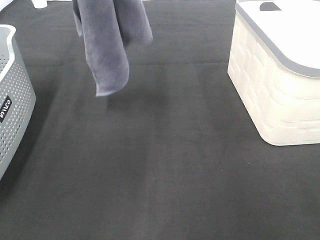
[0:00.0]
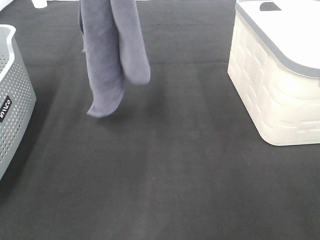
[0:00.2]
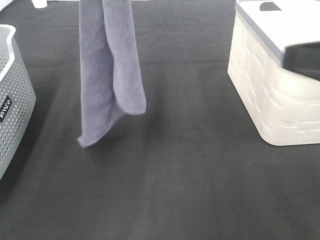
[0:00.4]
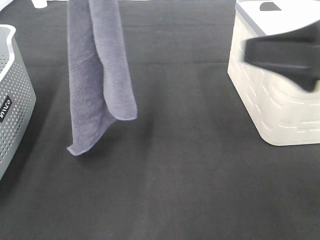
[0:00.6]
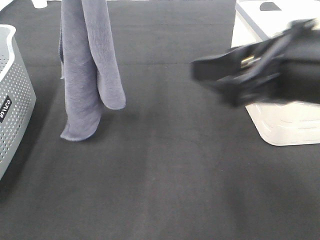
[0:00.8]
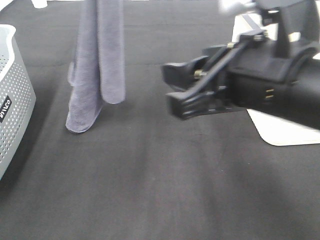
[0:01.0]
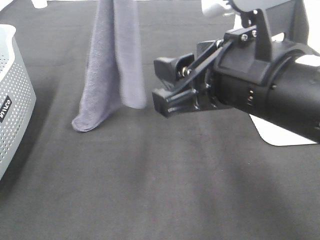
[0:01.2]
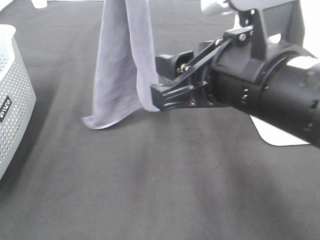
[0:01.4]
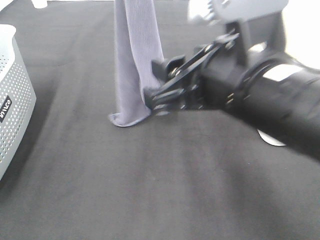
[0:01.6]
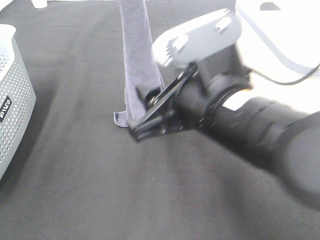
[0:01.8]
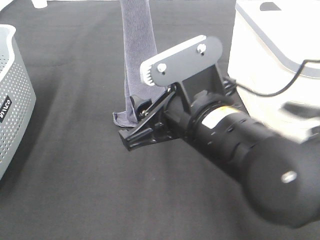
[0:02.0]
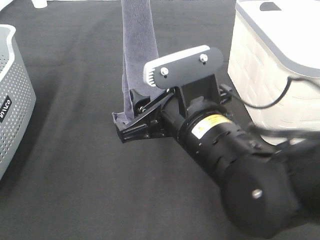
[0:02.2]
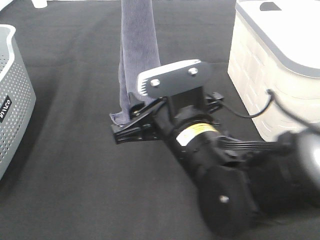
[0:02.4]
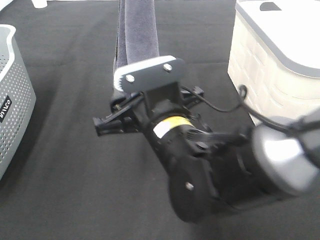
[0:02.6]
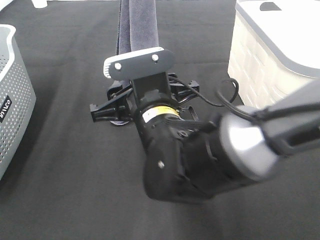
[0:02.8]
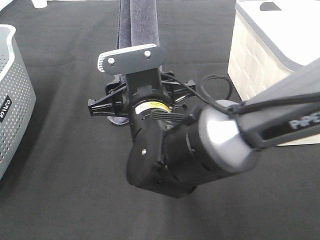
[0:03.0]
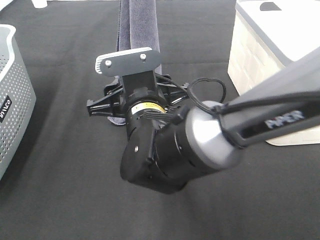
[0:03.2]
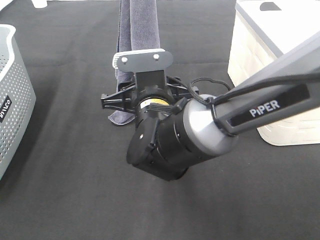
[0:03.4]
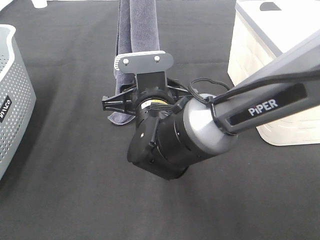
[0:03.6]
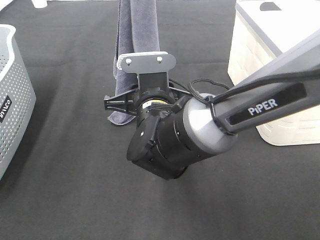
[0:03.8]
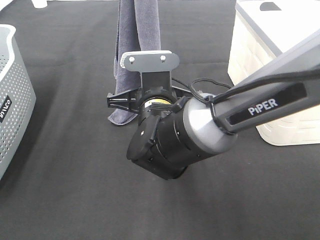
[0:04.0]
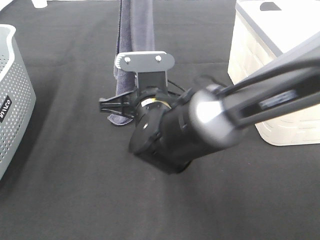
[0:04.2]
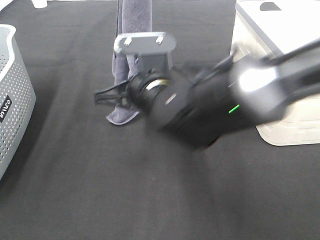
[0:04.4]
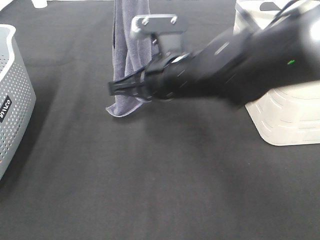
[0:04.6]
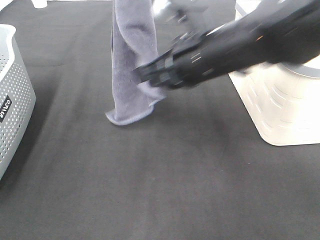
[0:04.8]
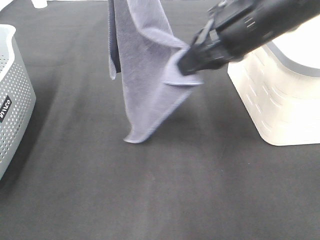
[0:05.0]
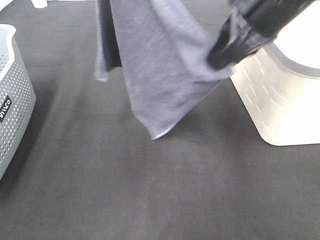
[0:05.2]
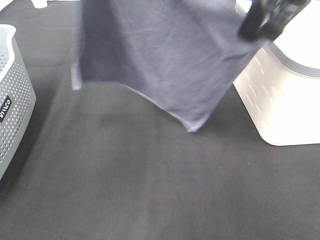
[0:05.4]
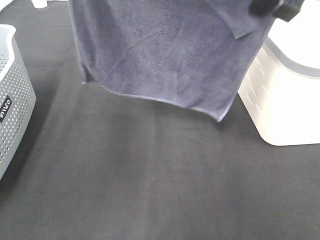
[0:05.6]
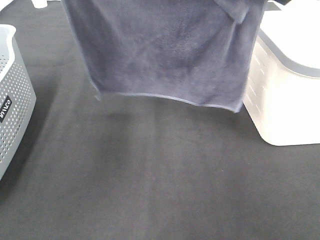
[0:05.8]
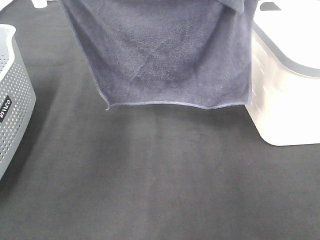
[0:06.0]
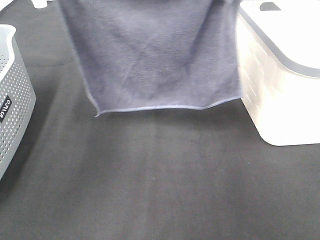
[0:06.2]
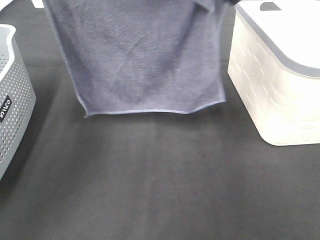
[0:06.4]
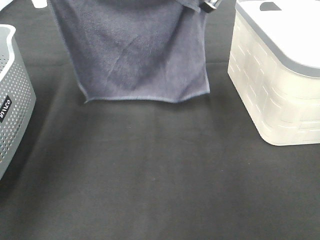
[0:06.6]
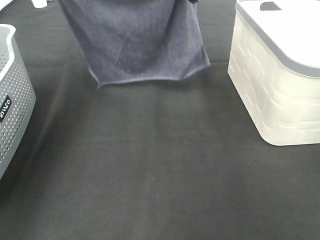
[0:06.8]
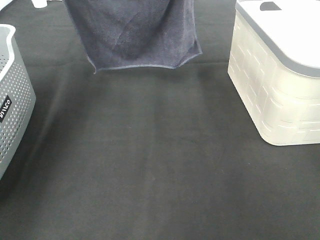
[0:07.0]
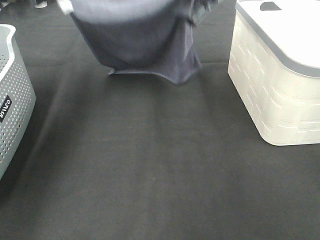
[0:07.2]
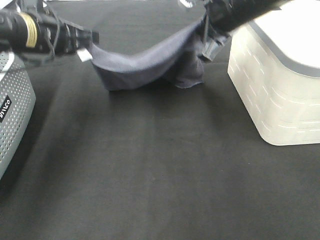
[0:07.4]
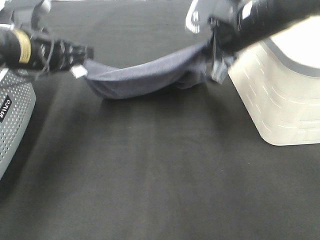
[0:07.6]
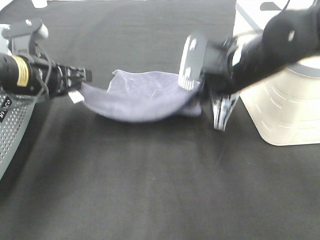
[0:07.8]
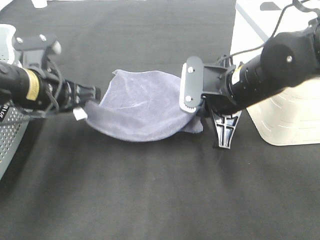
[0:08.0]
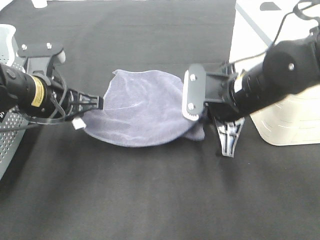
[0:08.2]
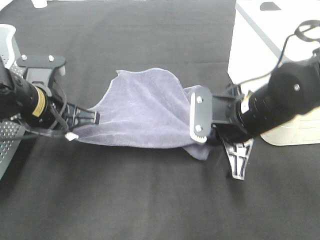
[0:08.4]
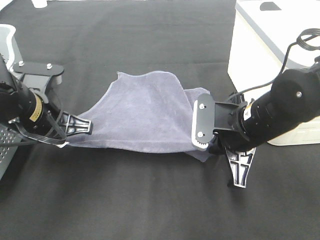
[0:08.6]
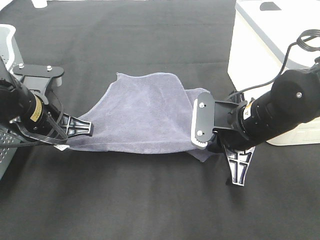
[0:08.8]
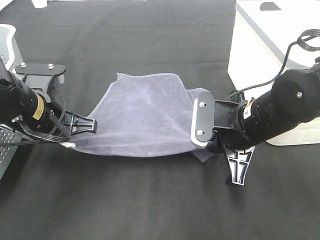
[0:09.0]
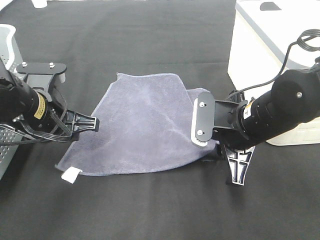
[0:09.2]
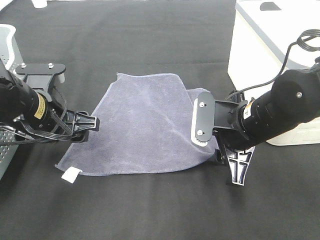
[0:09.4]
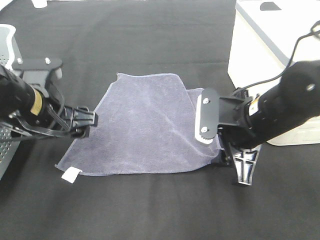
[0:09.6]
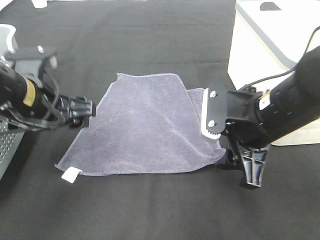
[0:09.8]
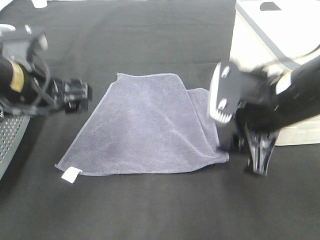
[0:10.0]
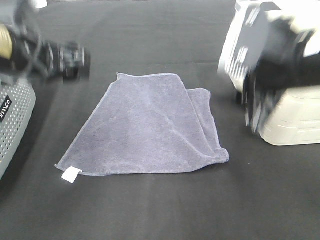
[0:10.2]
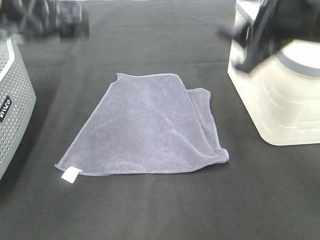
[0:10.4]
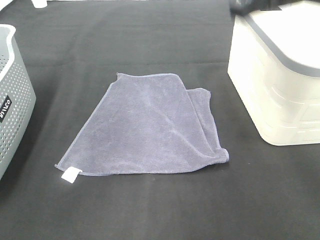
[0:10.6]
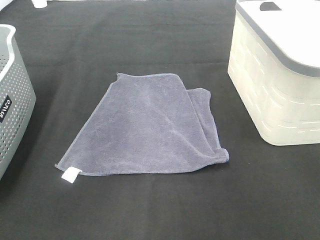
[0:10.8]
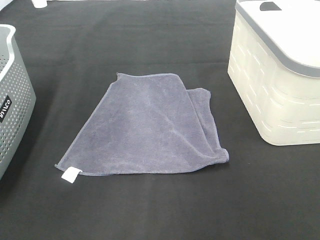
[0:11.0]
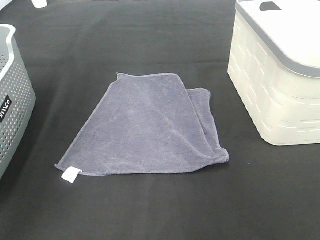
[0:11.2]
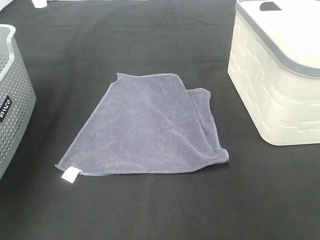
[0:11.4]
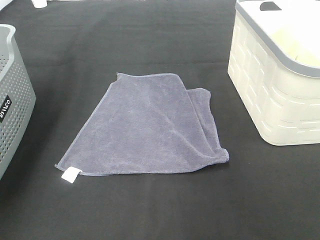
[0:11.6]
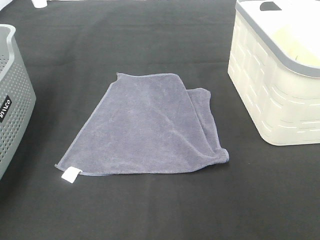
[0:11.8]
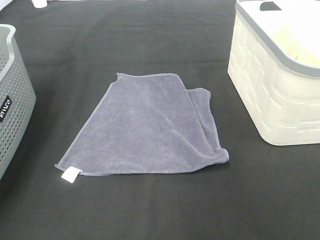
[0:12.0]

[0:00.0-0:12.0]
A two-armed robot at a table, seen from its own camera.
Task of the whole recording: Remove the towel and place it.
Step, 0:00.0 to 0:02.0: Right hand: grab a corner of the grey towel and straighten it.
Step, 0:02.2 to 0:05.0: Left hand: spread the grey towel flat on the table.
Step, 0:02.2 to 0:05.0: Right hand: spread the grey towel flat on the table.
0:00.0 to 0:01.6: The right gripper moves to the left and forward, some 20 cm; the left gripper shifts some 10 cm downward and to the right.
0:01.6 to 0:03.0: The right gripper is displaced to the left, downward and forward by roughly 15 cm.
0:03.0 to 0:04.4: The right gripper closes up.
0:04.4 to 0:06.0: The left gripper heads to the left and downward, covering roughly 15 cm, while the right gripper heads upward and to the right, covering approximately 25 cm.
0:06.0 to 0:07.6: The grippers both shift downward by approximately 15 cm.
0:07.6 to 0:09.0: The right gripper travels downward and backward by some 15 cm, while the left gripper heads backward, covering approximately 5 cm.
0:09.0 to 0:10.4: Both grippers move upward, approximately 15 cm. The right gripper opens its fingers, while the left gripper opens its fingers.
0:10.4 to 0:12.0: The left gripper shifts approximately 20 cm to the left and upward. Meanwhile the right gripper shifts approximately 20 cm forward and upward.

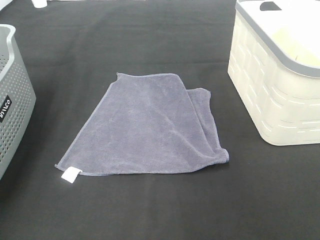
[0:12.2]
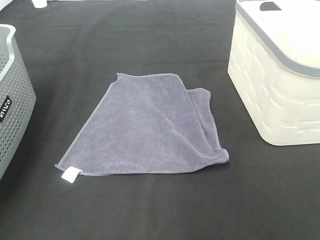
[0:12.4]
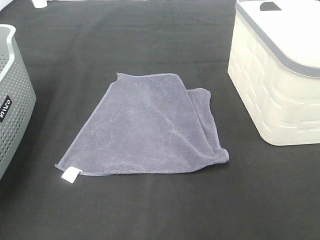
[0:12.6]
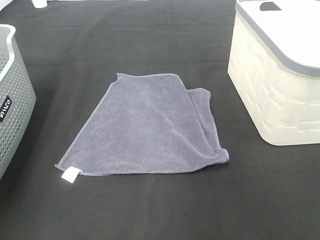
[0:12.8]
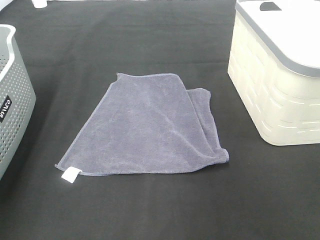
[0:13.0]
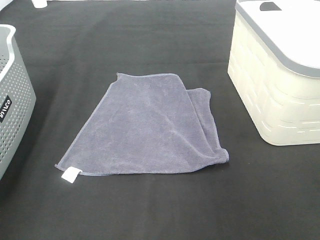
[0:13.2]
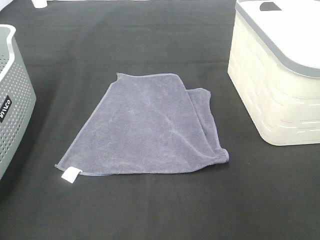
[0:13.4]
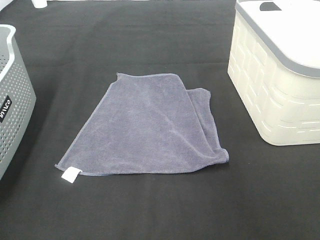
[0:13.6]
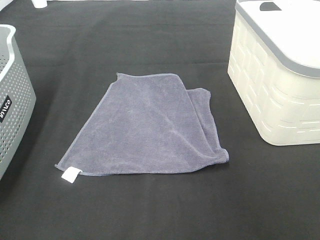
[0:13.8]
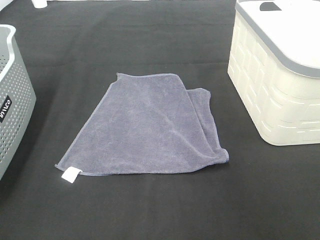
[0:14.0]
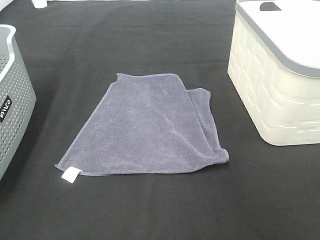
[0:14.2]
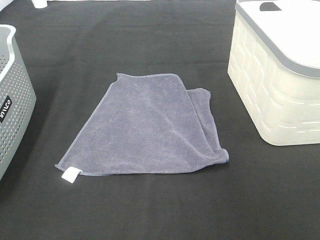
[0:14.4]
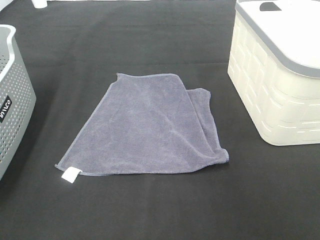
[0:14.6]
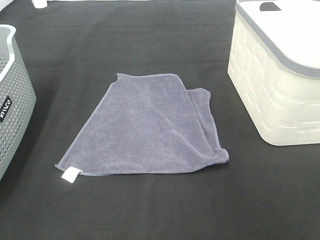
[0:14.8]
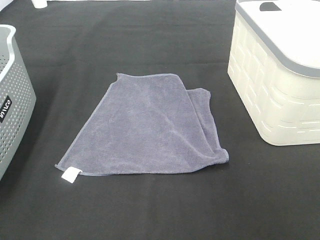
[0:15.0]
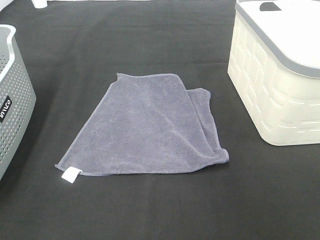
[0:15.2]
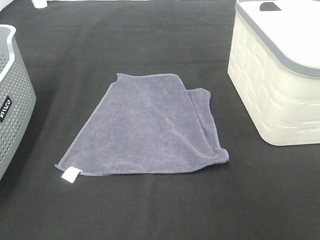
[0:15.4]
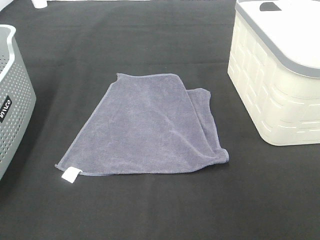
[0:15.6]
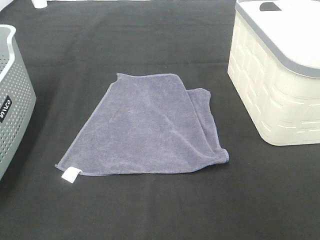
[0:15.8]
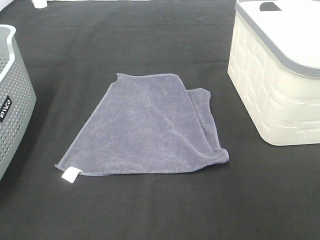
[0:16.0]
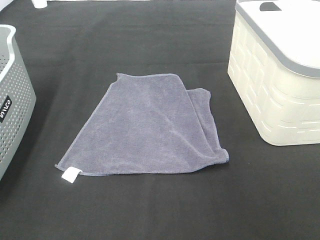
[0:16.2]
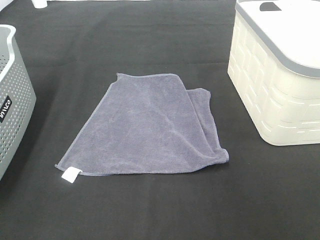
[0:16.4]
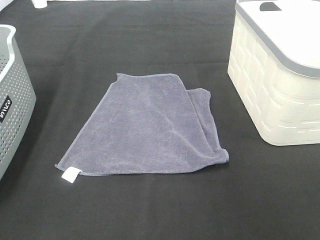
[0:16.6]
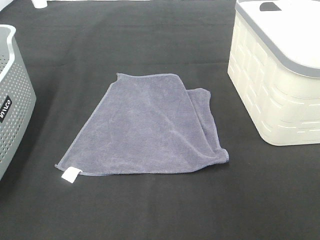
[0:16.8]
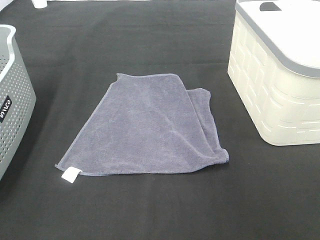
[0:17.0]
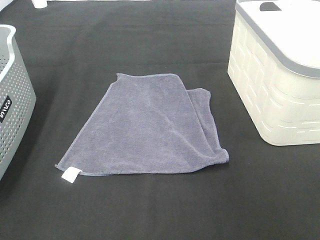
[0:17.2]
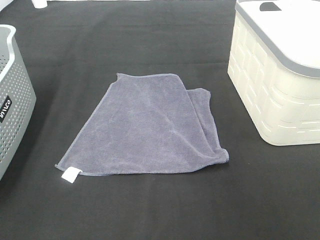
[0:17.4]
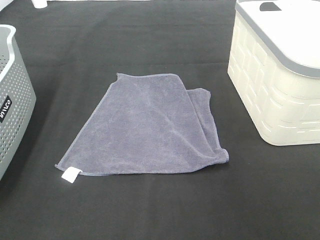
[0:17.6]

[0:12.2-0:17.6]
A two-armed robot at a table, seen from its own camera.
Task of the whole recording: Remove the towel and place it.
0:15.0 to 0:17.6: Both grippers stay put.

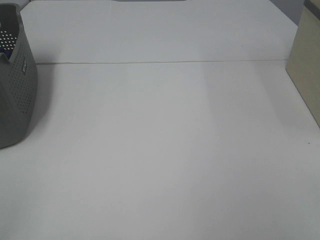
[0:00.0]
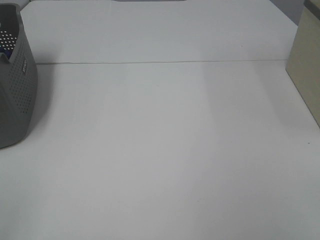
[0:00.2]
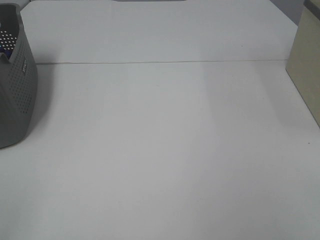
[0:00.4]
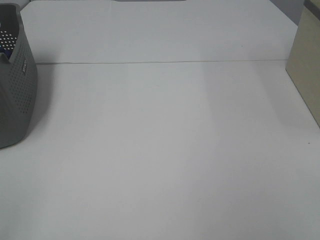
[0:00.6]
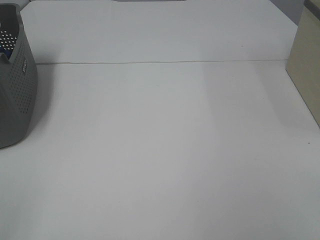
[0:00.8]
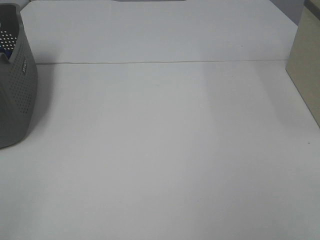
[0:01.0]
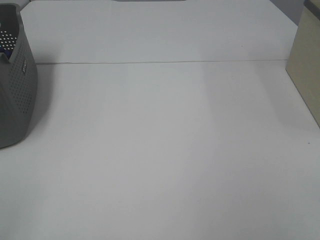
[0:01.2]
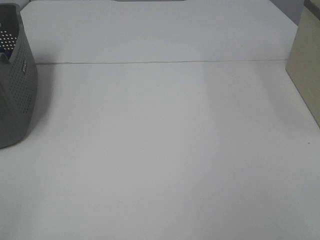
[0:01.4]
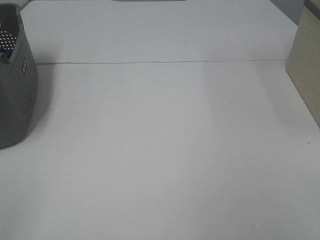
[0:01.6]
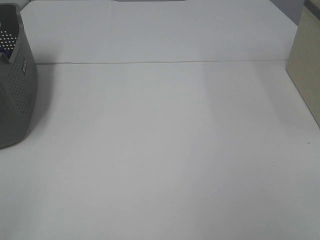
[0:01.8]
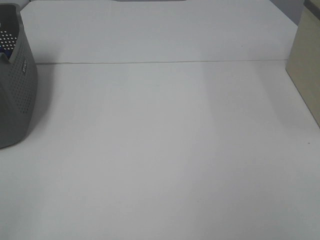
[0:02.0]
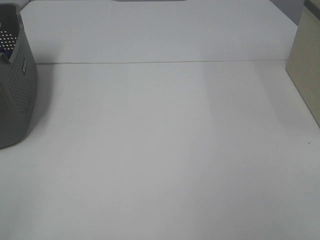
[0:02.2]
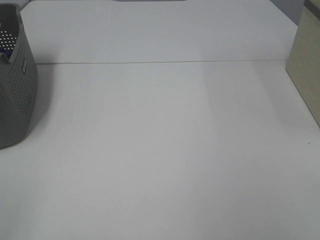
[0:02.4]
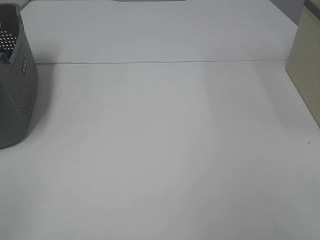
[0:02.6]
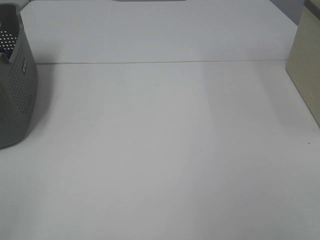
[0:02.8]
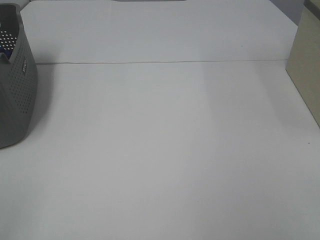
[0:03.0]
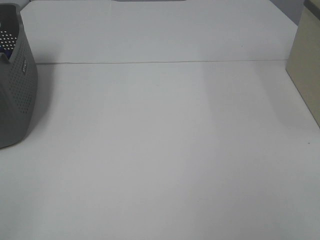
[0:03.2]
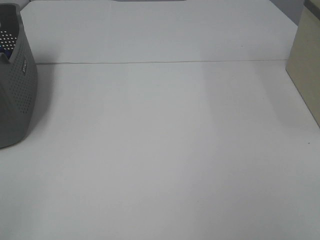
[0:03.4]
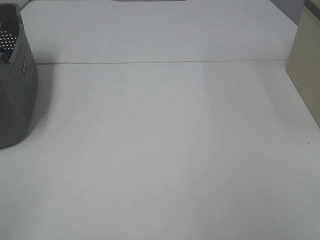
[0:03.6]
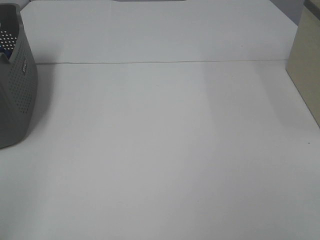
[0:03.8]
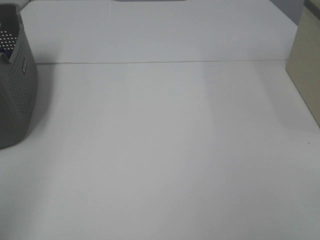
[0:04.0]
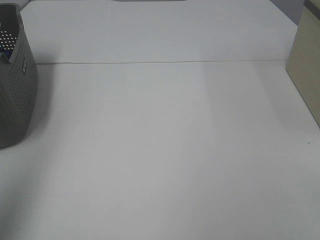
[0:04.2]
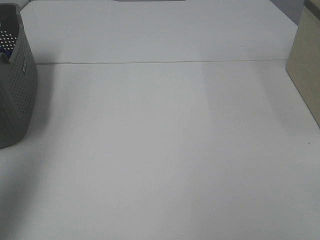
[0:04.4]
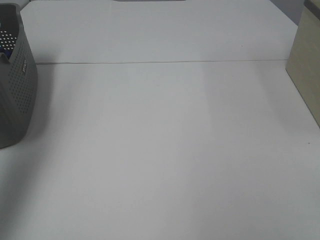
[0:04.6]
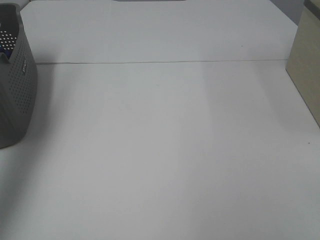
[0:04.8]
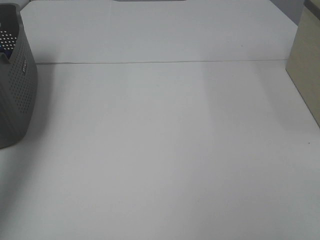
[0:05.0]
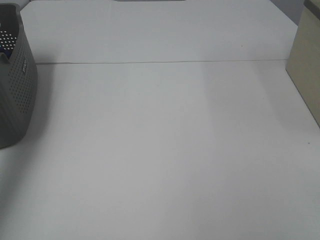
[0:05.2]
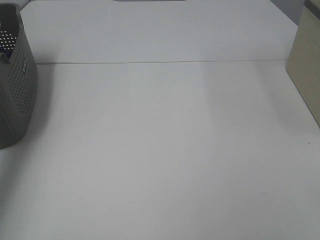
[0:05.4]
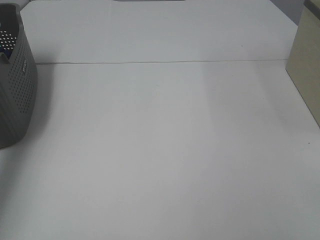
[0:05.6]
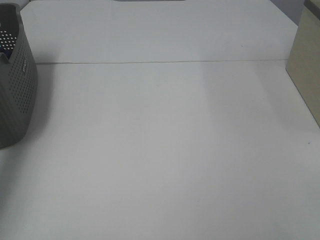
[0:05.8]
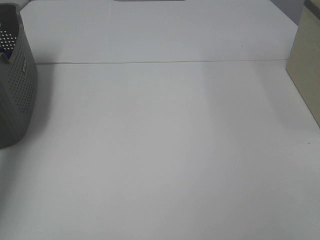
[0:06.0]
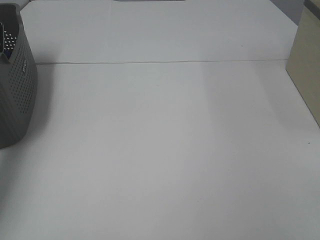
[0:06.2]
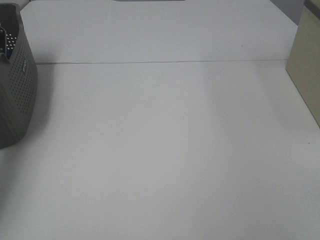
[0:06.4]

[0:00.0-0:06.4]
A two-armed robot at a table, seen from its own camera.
Task of the whole recording: Remove the towel and place it.
0:00.0 to 0:03.2: Both grippers stay about where they are.
0:03.2 to 0:04.8: The left gripper shifts some 35 cm forward and upward.
0:04.8 to 0:06.4: The left gripper heads downward and forward, covering approximately 30 cm.
